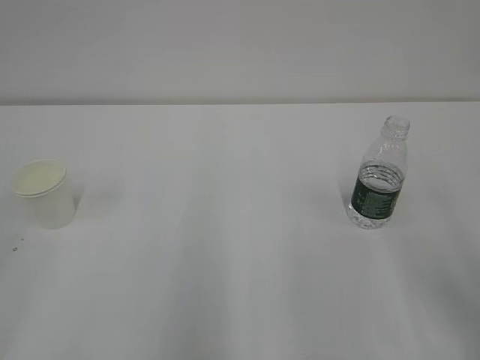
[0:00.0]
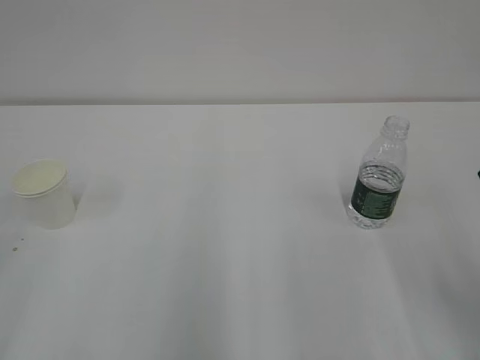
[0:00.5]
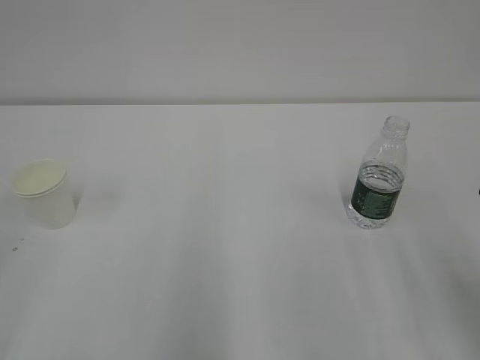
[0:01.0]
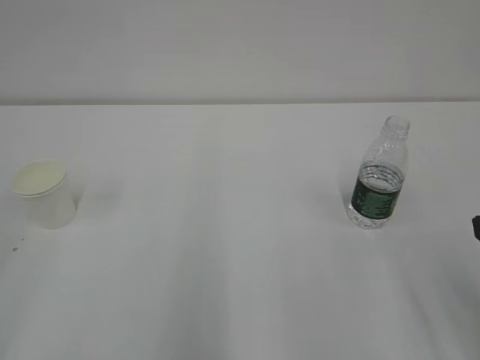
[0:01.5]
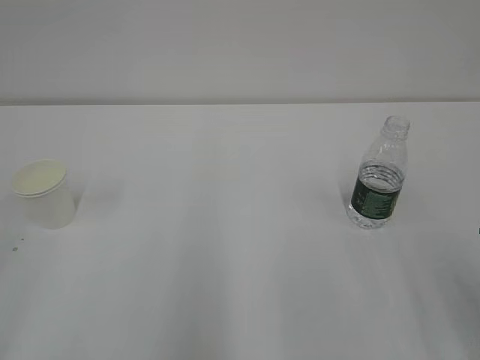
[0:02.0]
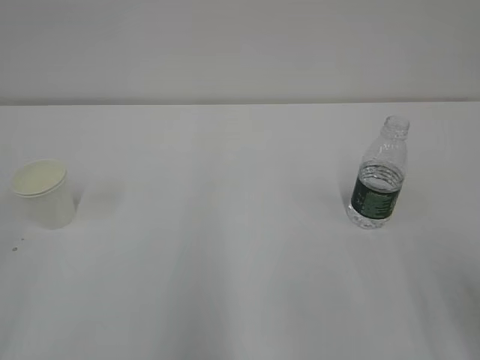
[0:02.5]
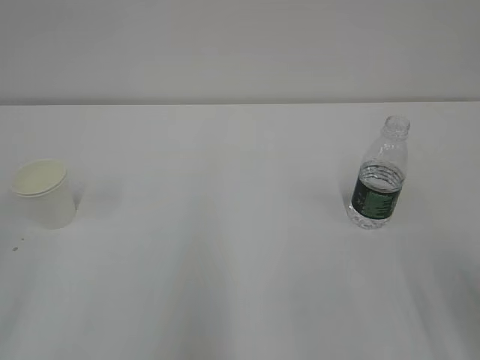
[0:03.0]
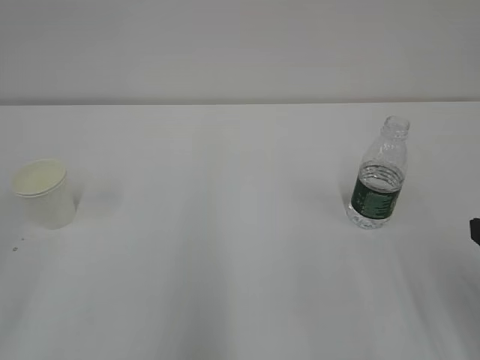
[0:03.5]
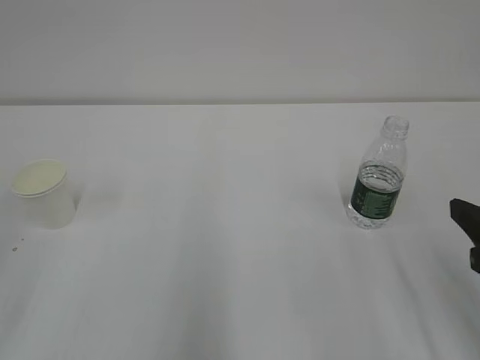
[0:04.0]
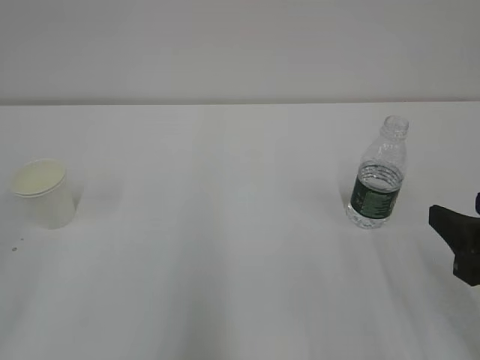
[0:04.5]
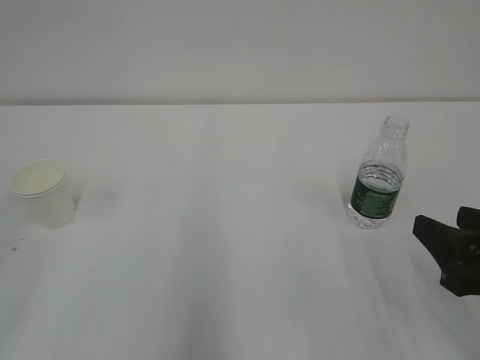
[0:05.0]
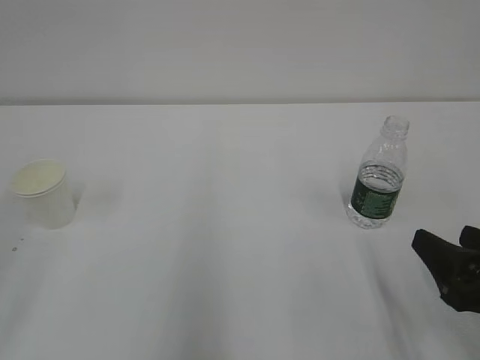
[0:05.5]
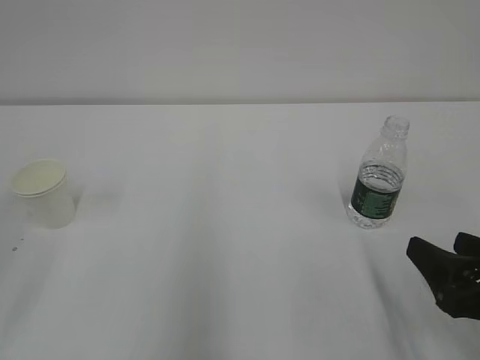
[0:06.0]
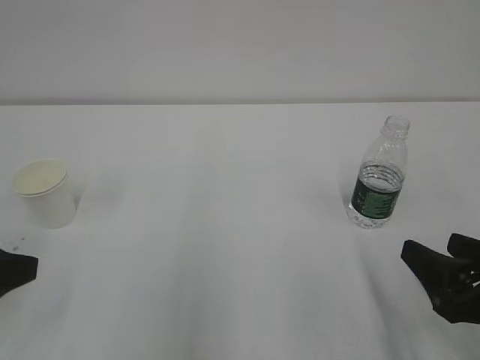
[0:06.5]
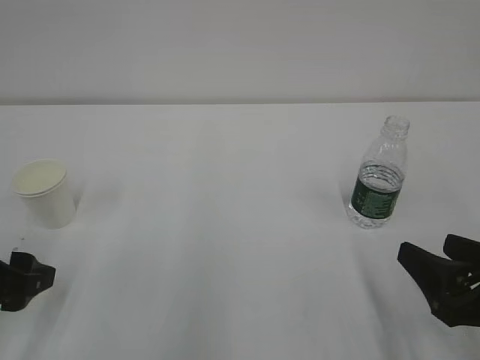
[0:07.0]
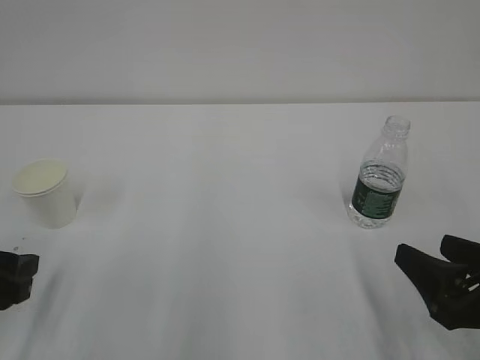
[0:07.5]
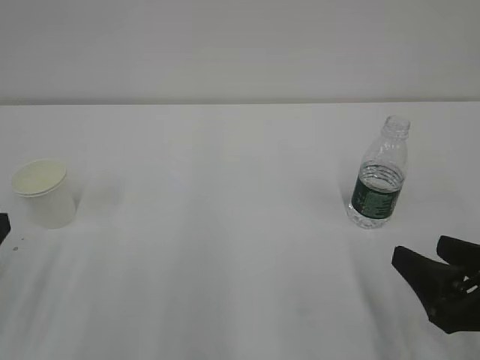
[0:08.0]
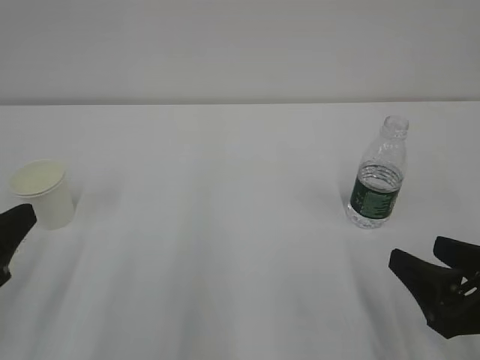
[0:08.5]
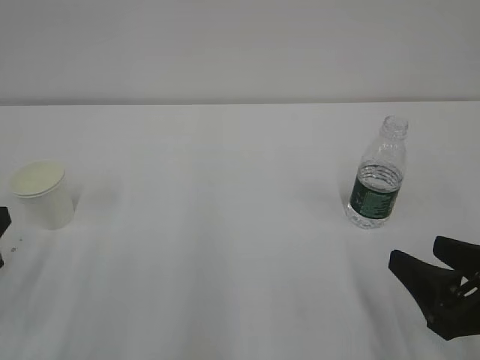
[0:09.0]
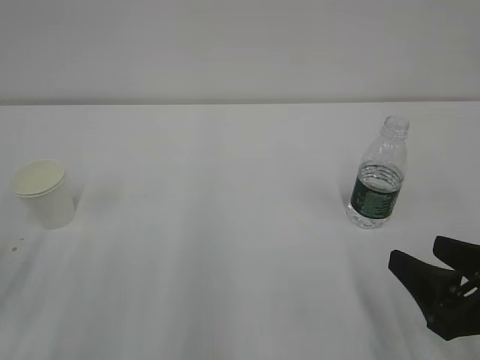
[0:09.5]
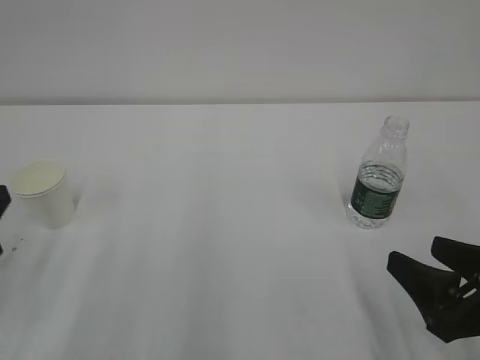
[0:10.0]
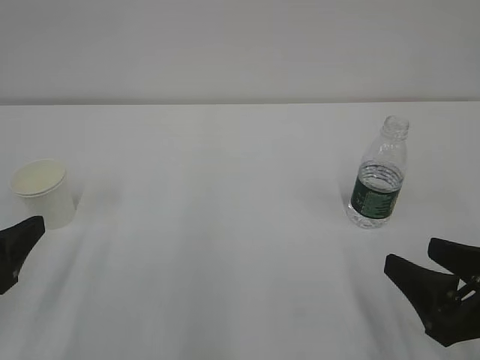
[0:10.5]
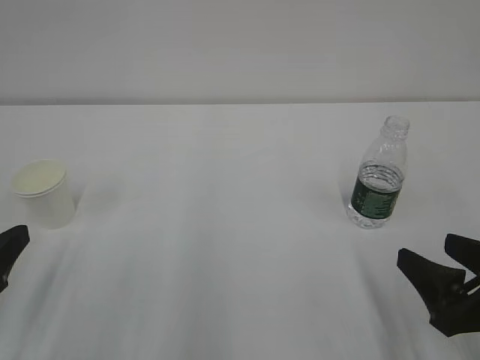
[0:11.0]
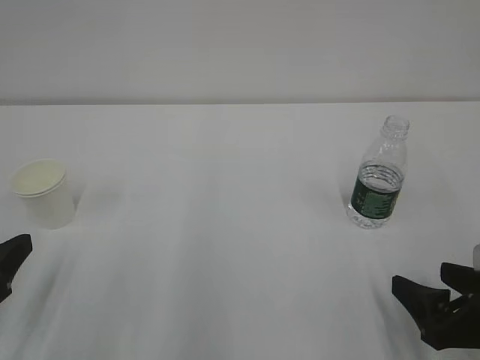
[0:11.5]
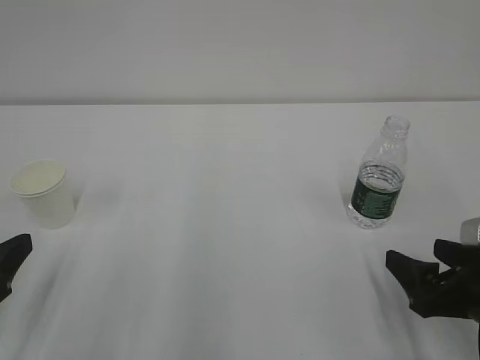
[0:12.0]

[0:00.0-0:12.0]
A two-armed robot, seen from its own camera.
0:04.0 to 0:06.0: The right gripper shifts roughly 5 cm downward.
0:10.0 to 0:12.0: The left gripper opens up.

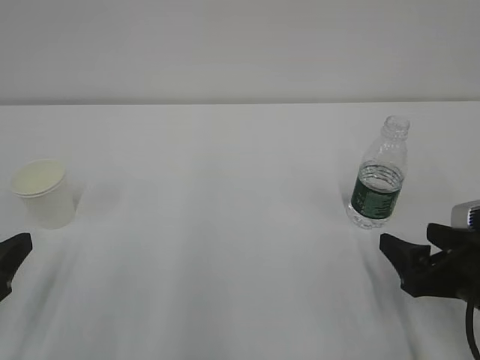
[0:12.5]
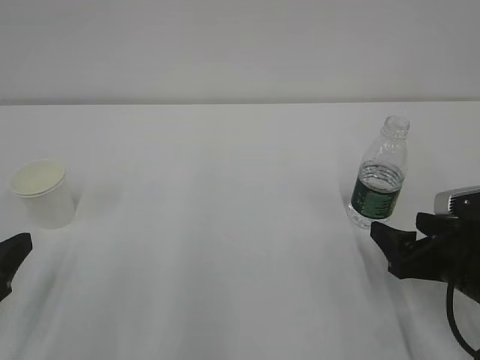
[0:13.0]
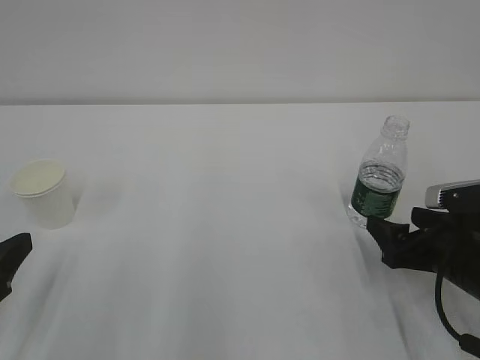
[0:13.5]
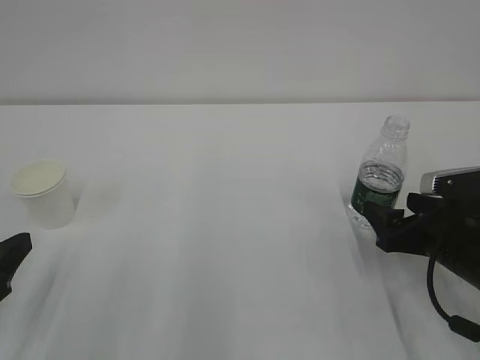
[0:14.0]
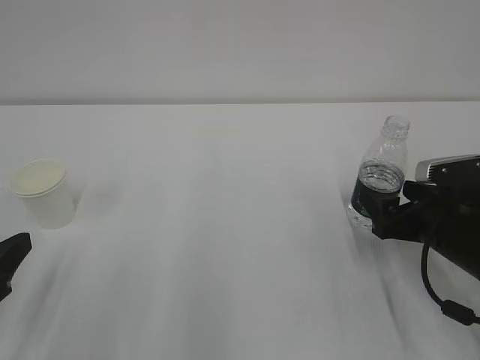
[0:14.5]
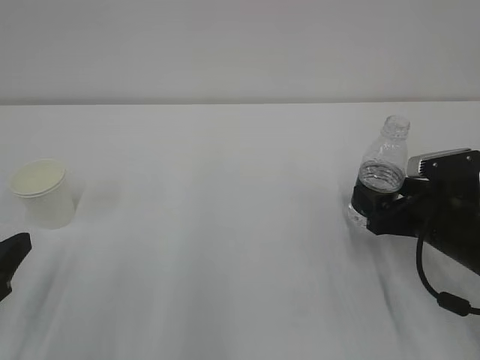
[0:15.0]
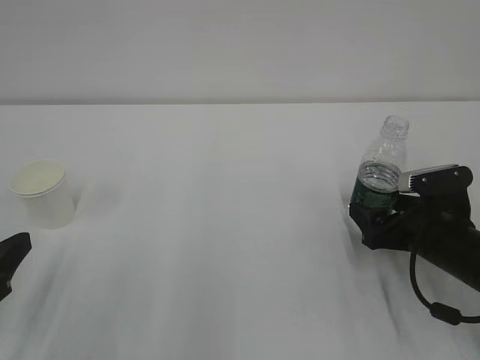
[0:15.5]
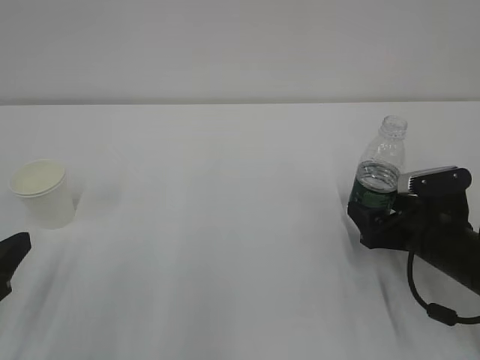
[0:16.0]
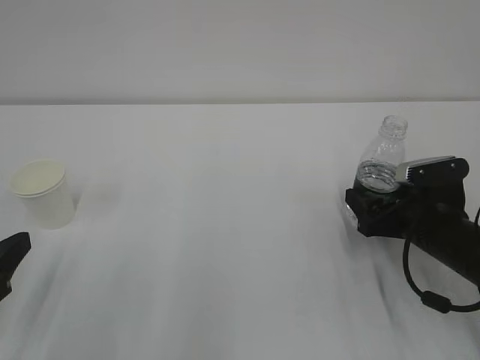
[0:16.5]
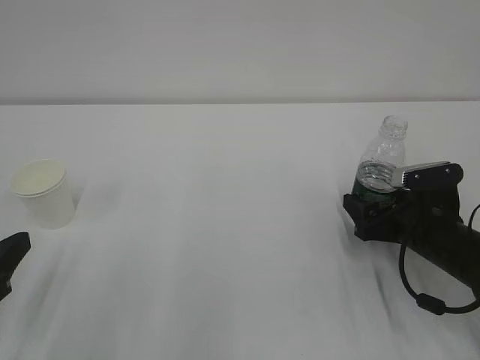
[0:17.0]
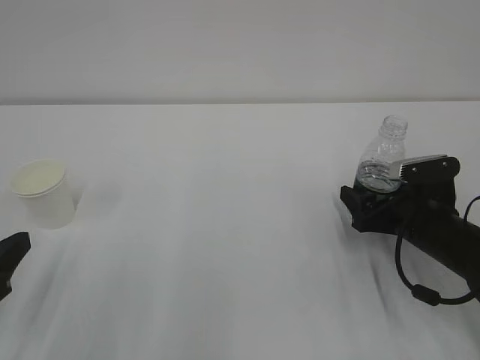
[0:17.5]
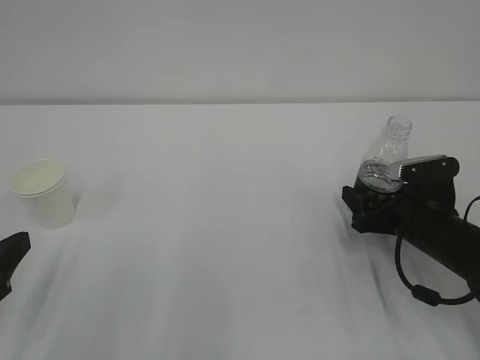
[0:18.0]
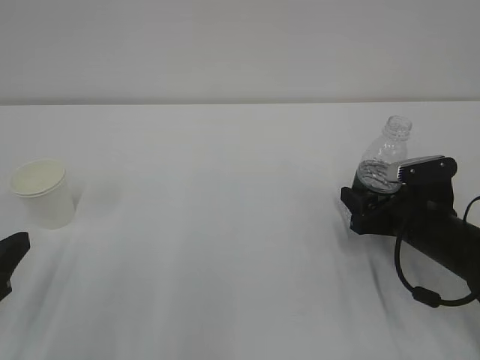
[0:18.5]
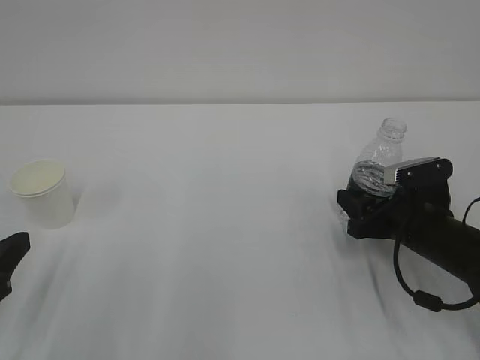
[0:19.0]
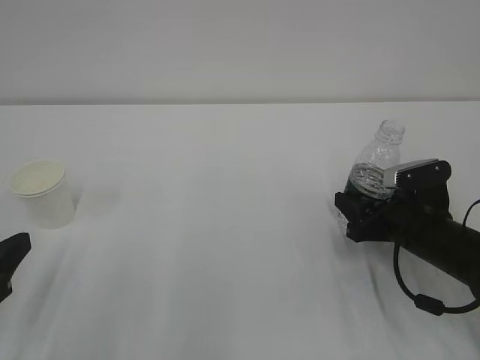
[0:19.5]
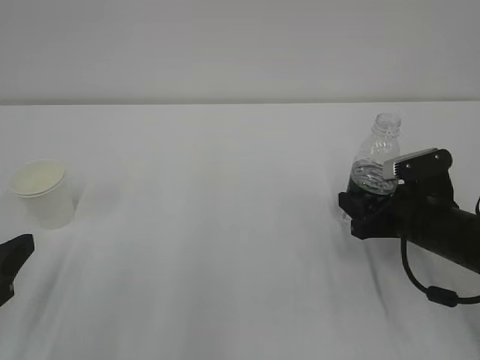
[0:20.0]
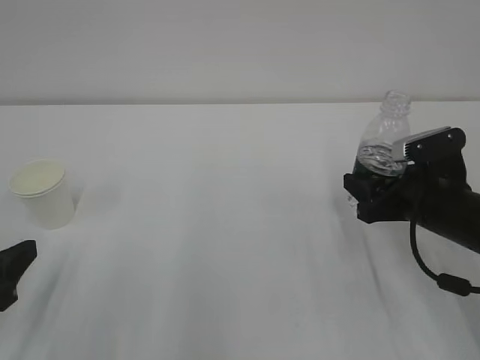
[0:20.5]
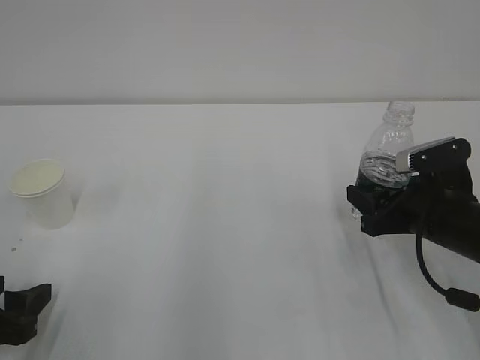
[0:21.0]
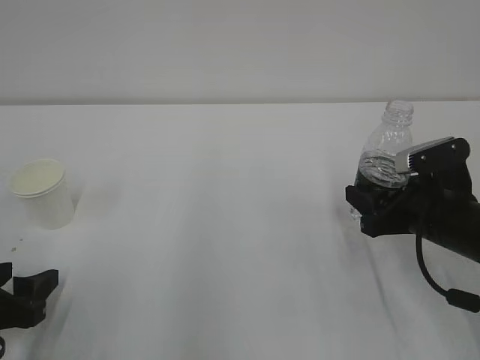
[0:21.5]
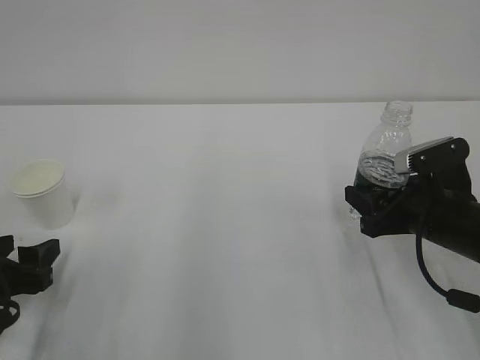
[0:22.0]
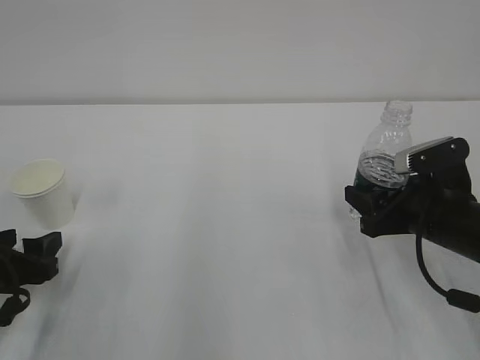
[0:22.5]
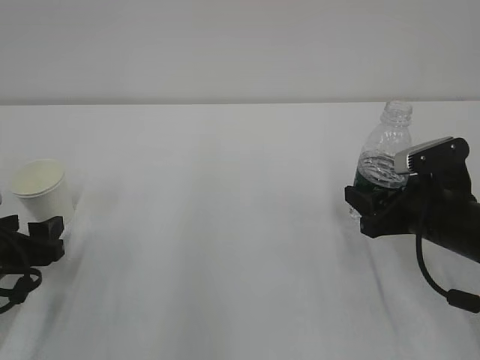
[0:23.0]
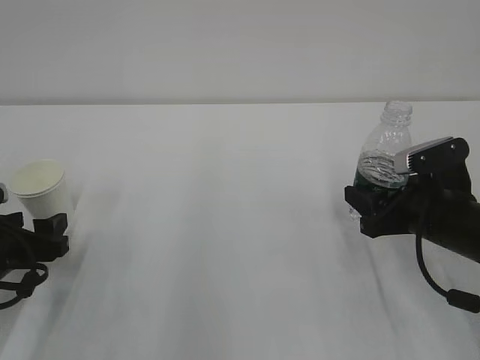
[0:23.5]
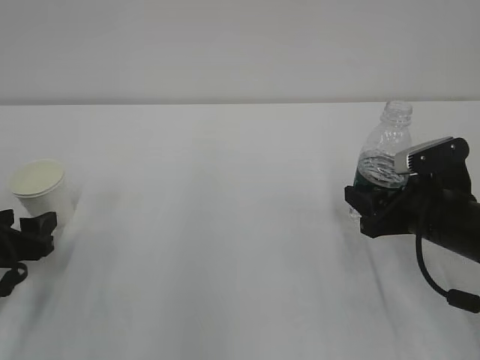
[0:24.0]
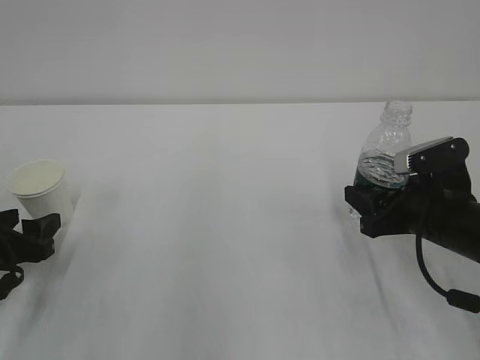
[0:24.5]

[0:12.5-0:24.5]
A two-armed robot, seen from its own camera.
0:12.5 to 0:14.5: The right gripper shifts about 5 cm forward.
0:14.5 to 0:16.5: The grippers stay close to where they were, moving slightly.
0:16.5 to 0:18.5: The right gripper closes.
0:18.5 to 0:20.5: The right gripper changes place by roughly 5 cm.
0:20.5 to 0:22.5: The left gripper heads forward, covering some 5 cm.
0:22.5 to 0:24.5: The grippers make only small movements.

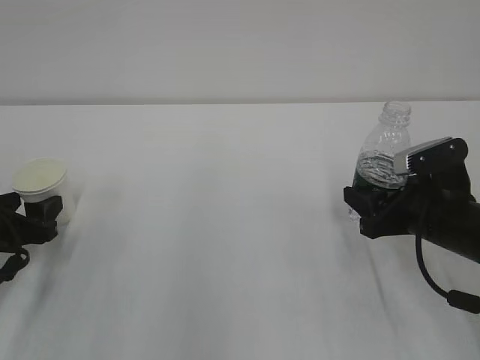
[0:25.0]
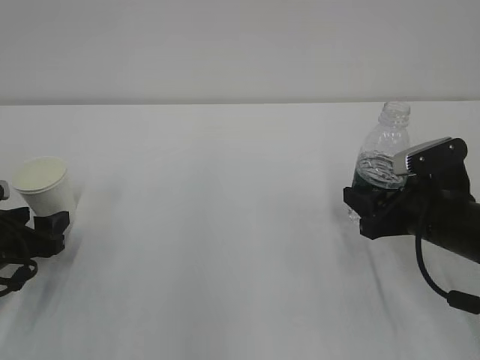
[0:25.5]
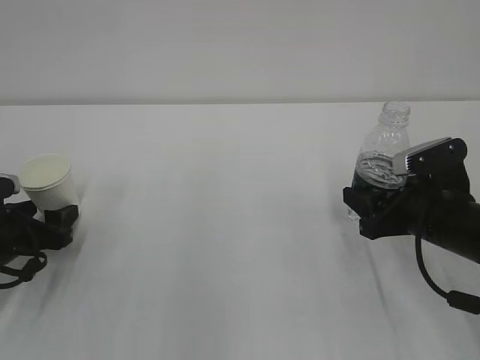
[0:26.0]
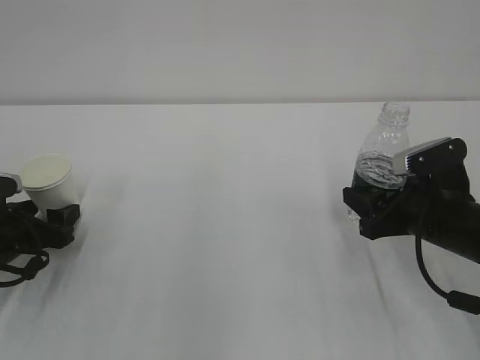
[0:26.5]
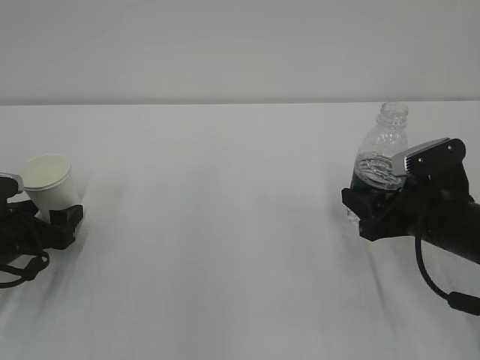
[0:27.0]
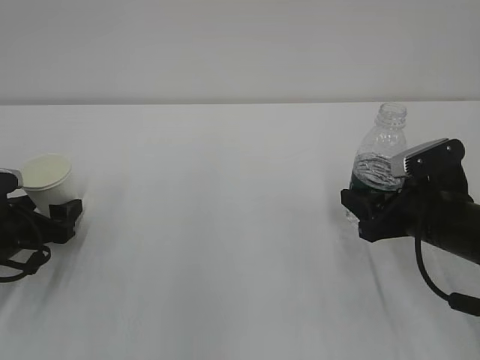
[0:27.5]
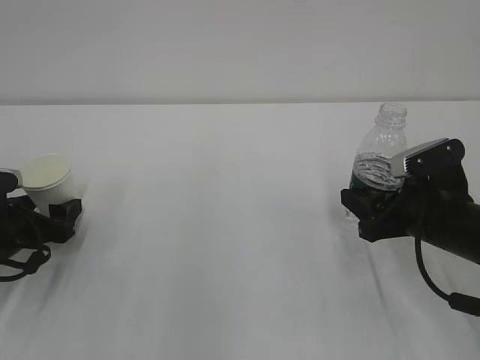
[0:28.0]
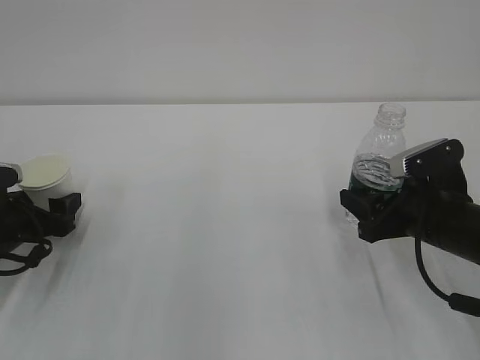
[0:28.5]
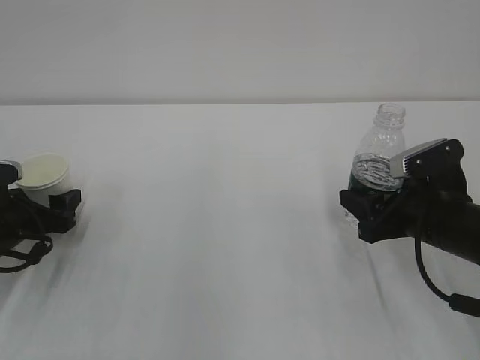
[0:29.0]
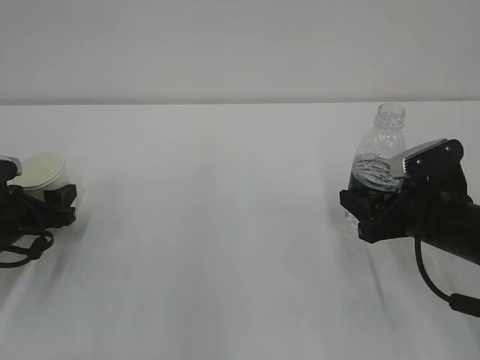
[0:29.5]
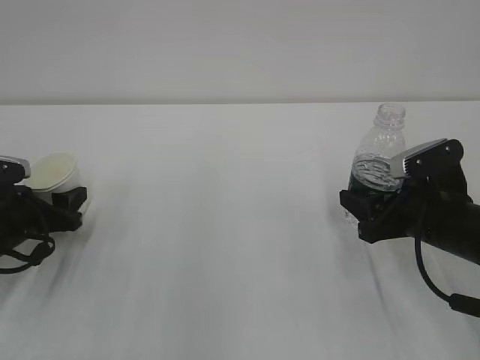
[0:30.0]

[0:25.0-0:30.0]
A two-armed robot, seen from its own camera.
0:25.0 to 0:27.5: The left gripper opens up.
0:27.5 to 0:30.0: The left gripper closes up.
